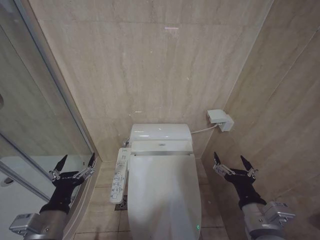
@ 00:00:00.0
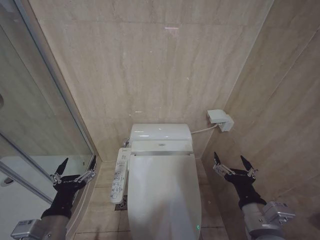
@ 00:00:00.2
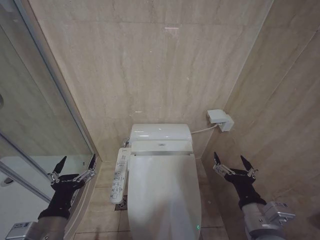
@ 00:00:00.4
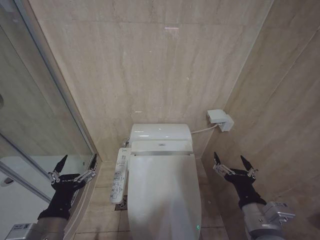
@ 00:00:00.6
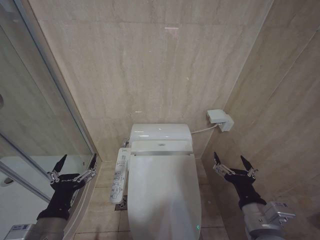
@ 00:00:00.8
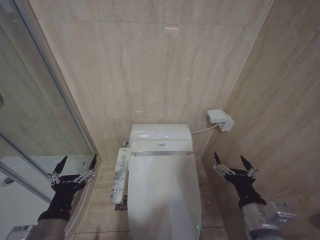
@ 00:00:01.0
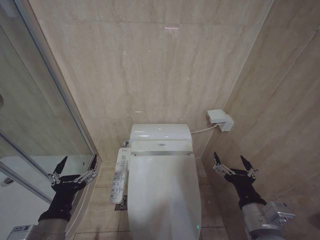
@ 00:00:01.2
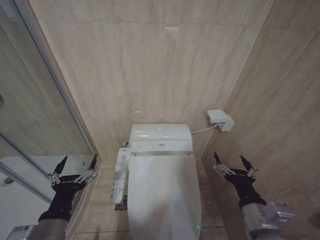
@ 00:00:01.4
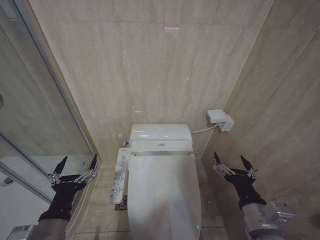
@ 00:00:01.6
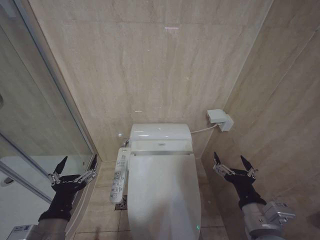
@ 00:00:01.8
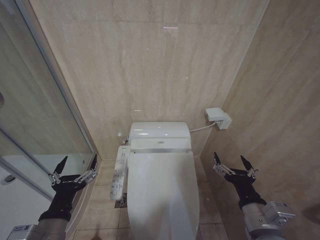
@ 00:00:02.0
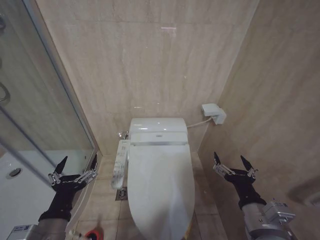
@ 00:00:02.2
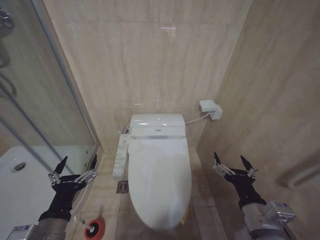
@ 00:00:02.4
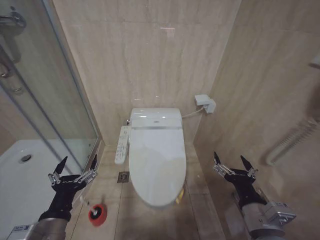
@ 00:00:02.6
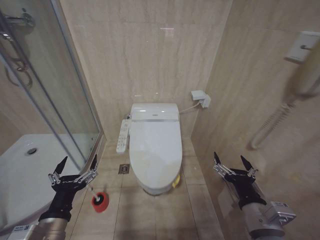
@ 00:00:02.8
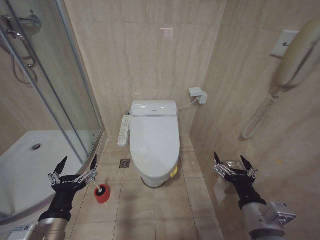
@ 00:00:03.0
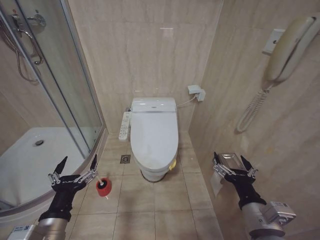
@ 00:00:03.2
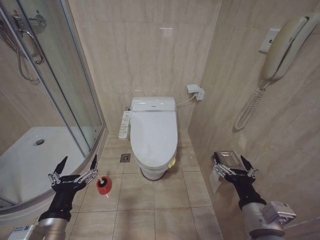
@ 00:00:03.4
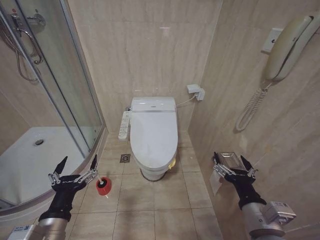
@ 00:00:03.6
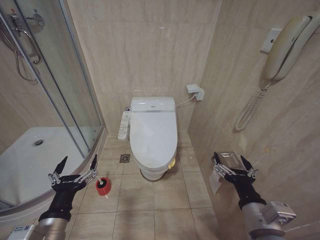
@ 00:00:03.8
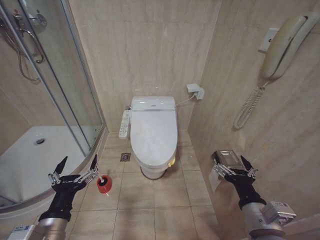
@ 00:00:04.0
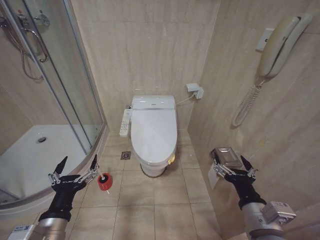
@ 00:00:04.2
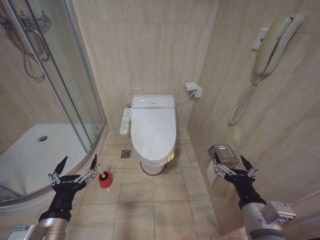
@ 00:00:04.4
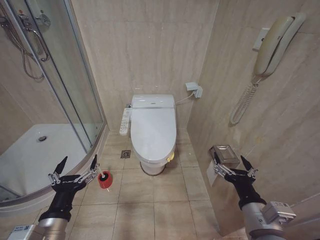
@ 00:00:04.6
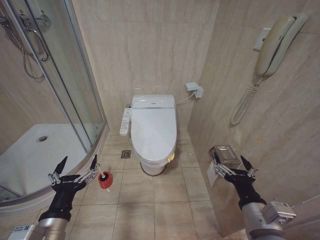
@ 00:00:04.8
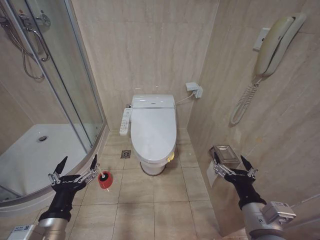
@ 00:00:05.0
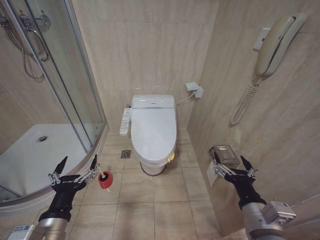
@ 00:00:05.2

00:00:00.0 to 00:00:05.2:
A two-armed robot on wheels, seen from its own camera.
Task of the whole recording: Open the toilet lid, clean the toilet bowl with a toilet brush, close the toilet lid, and flush.
00:00:00.0 to 00:00:01.8: The grippers stay close to where they were, moving slightly.
00:00:03.4 to 00:00:05.2: The two grippers keep their place.
